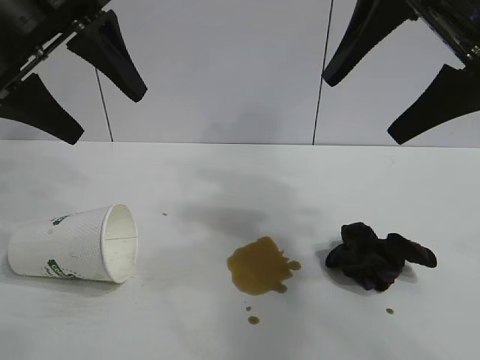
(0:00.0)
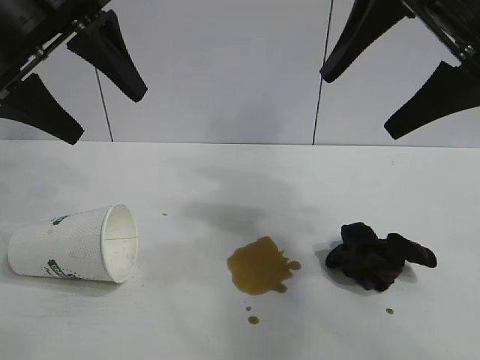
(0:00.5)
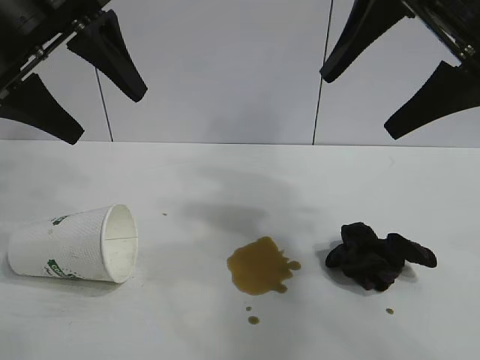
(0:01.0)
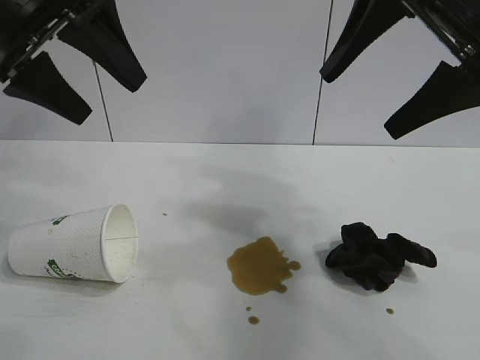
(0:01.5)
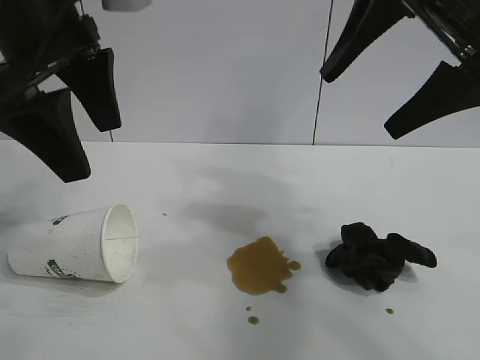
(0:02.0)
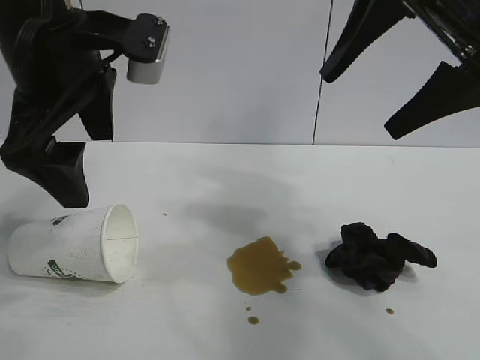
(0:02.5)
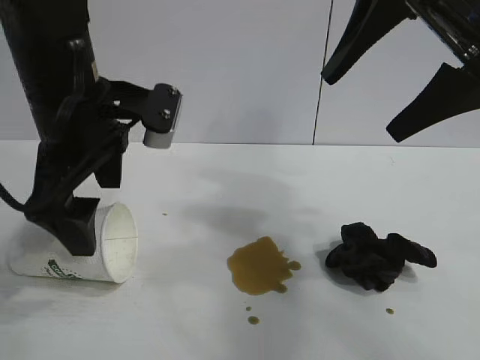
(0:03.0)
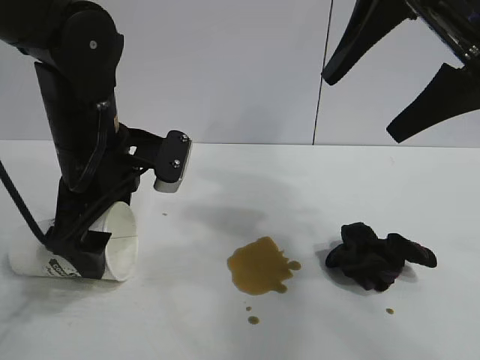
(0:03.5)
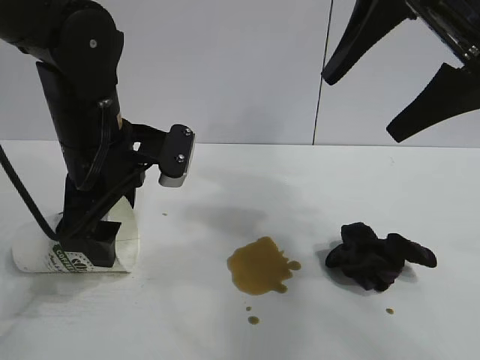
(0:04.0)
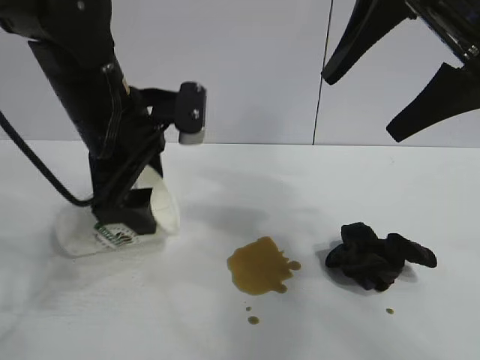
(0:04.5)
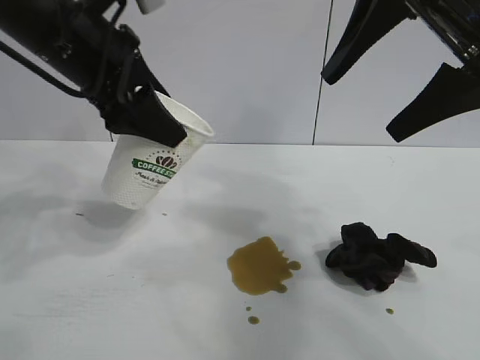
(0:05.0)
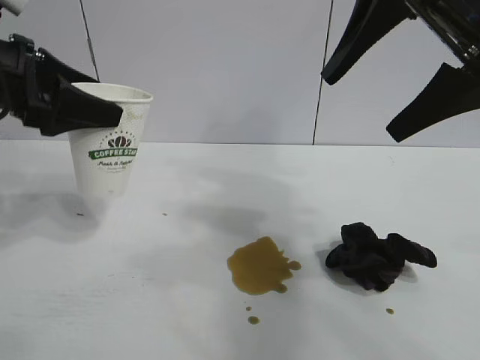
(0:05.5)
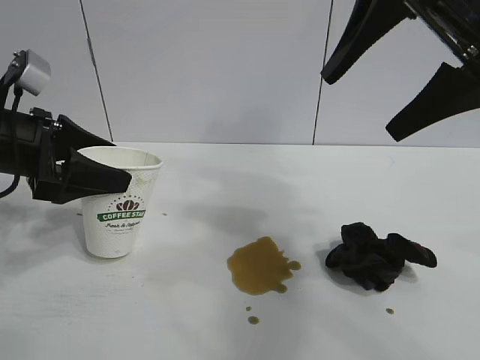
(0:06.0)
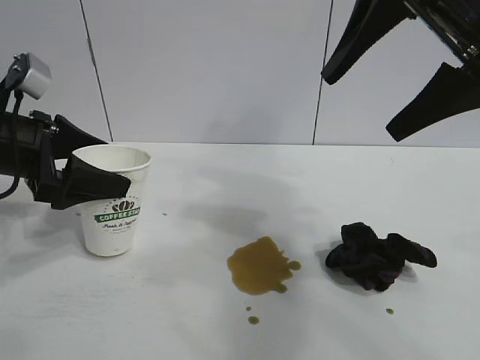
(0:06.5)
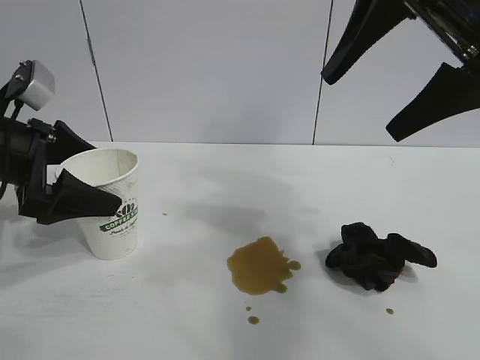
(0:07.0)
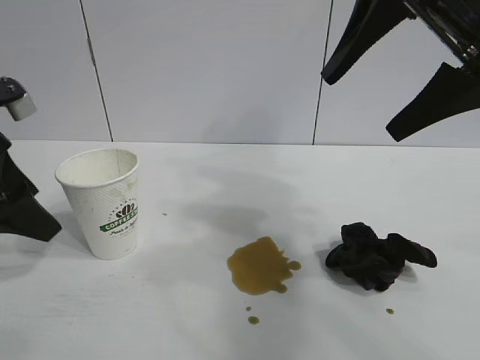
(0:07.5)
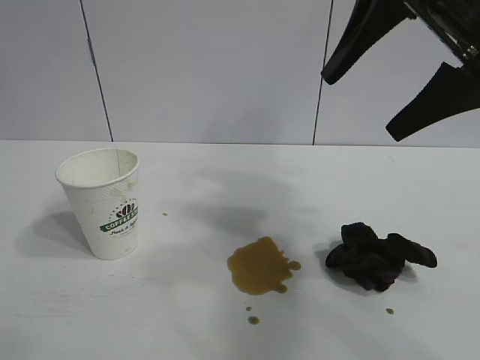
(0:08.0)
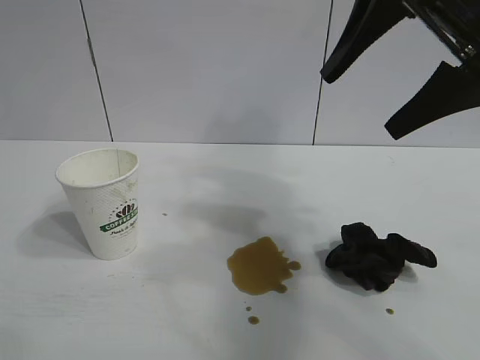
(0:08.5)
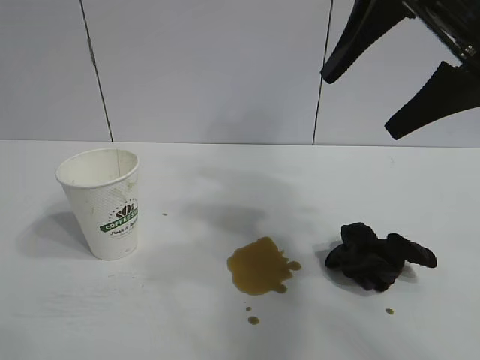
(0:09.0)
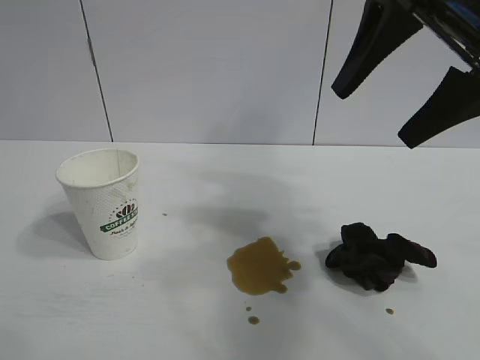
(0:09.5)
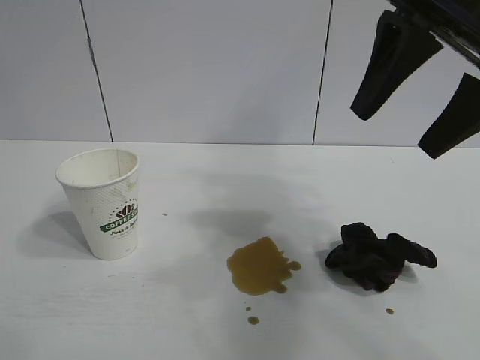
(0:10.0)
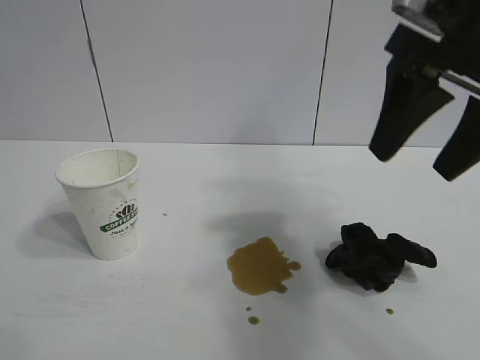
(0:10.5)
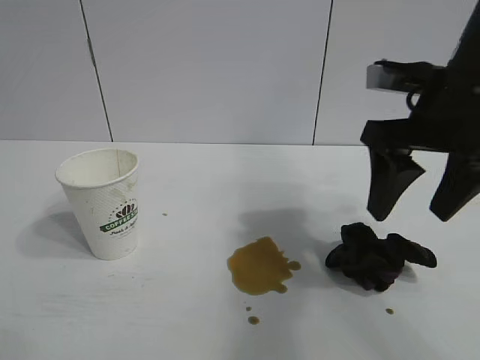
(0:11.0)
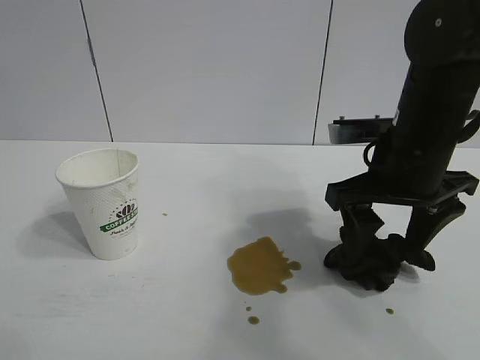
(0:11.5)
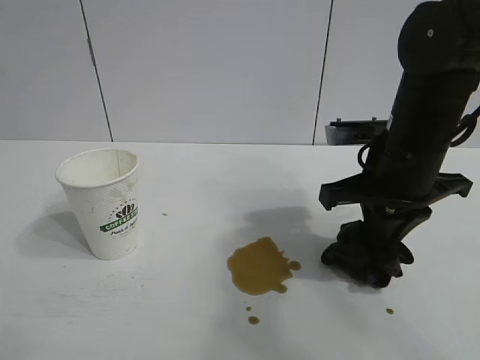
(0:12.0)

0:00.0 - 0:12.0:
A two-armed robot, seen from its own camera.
Task of the whole recording: the left gripper pick up the fallen cup and place it upright, the right gripper grasp the black rag and wipe the stain on the table, the right gripper put the black rag back in its original position.
Step, 0:01.5 - 0:04.0: Grasp the paper cup with left gripper.
Step, 0:04.5 - 0:06.5: Stand the paper cup upright with left gripper.
Step, 0:07.0 - 0:11.5: Grasp the rag with right gripper.

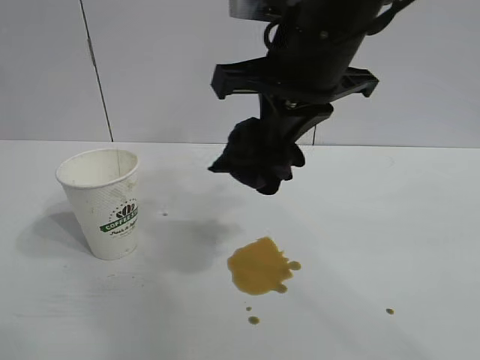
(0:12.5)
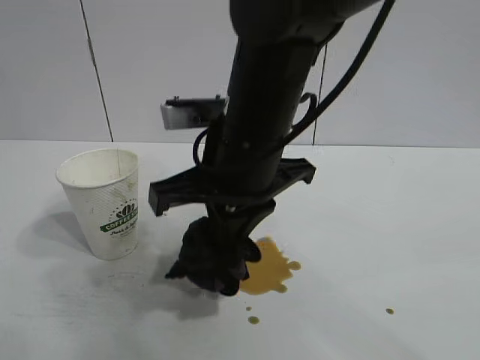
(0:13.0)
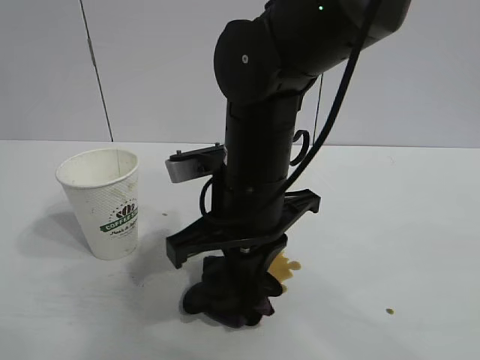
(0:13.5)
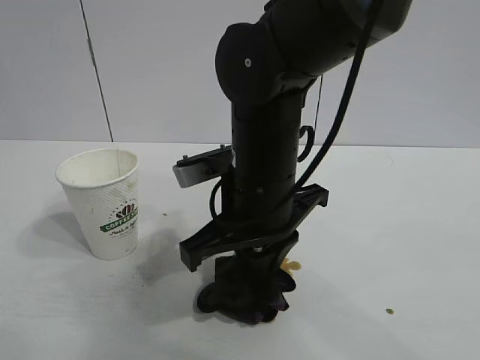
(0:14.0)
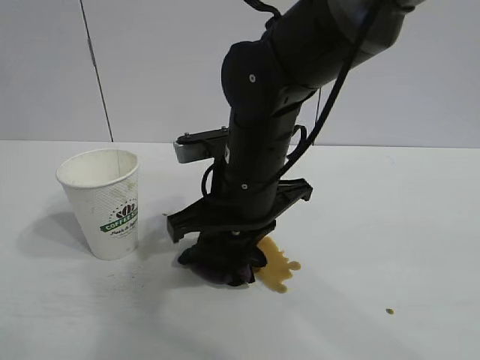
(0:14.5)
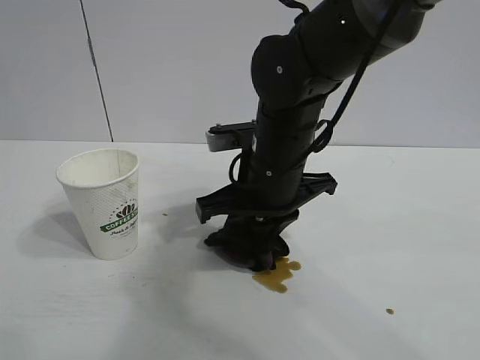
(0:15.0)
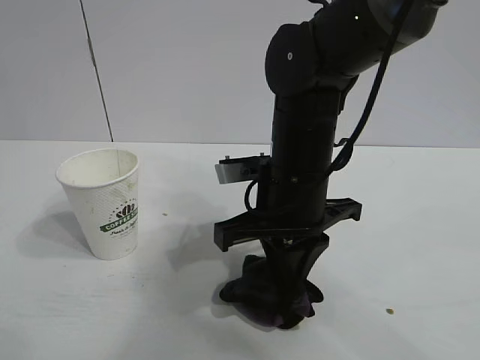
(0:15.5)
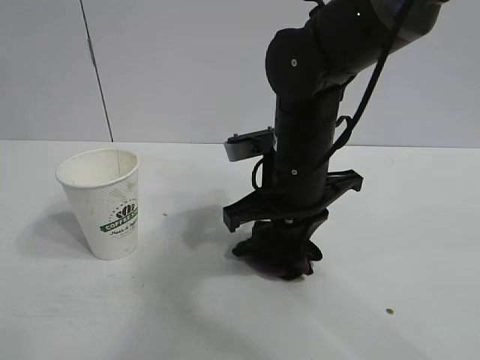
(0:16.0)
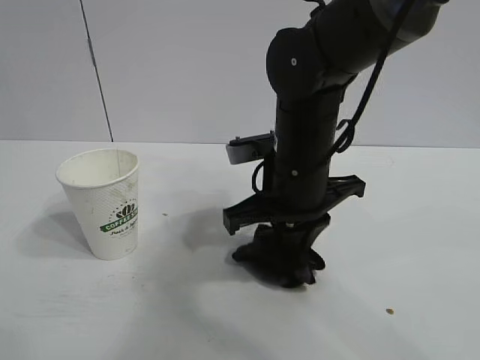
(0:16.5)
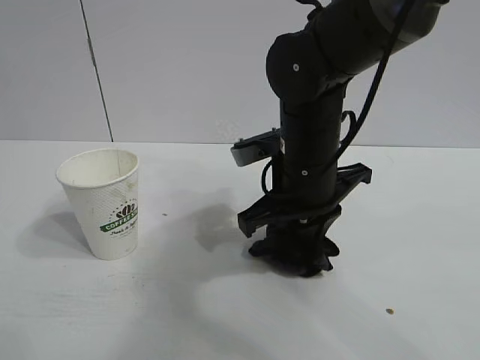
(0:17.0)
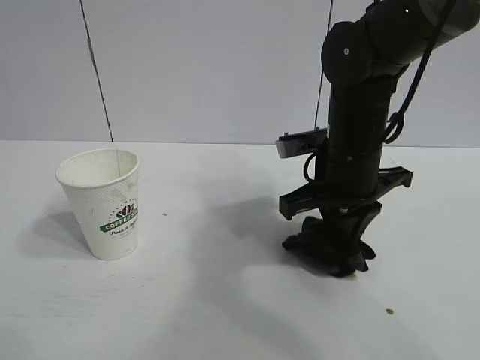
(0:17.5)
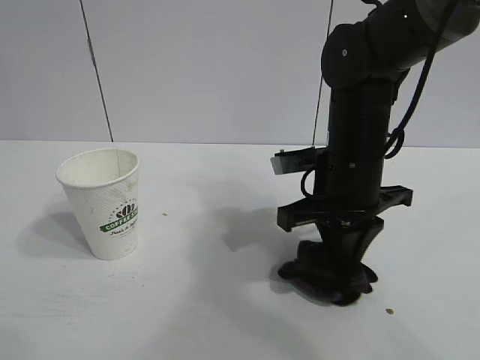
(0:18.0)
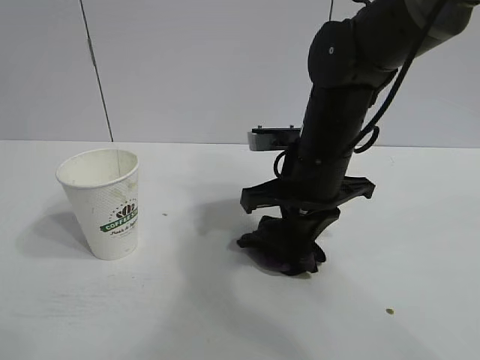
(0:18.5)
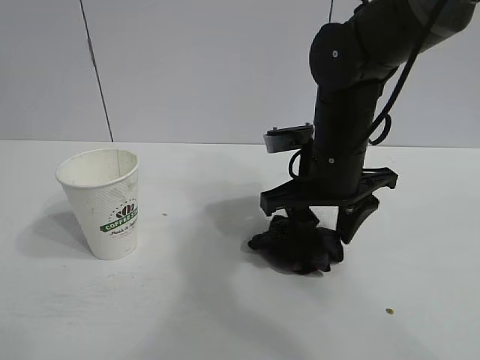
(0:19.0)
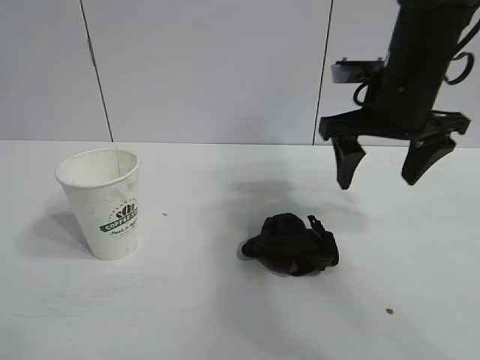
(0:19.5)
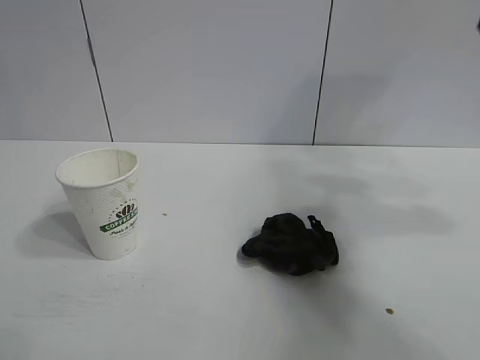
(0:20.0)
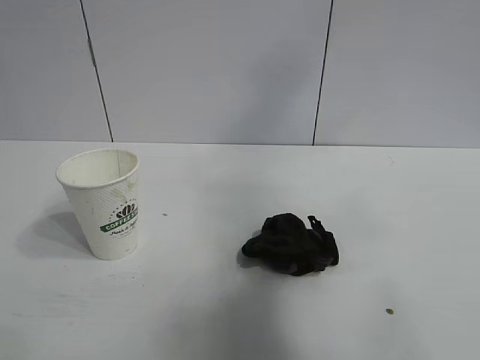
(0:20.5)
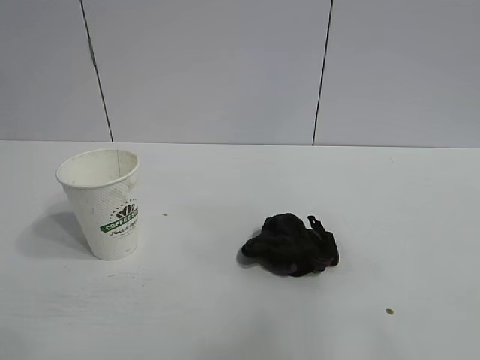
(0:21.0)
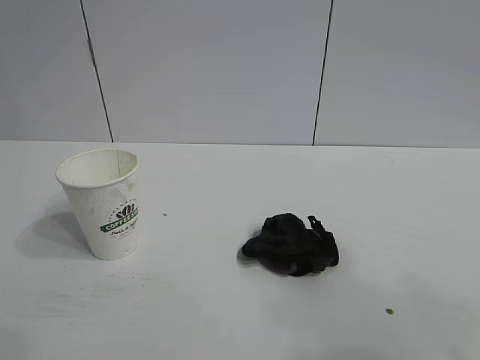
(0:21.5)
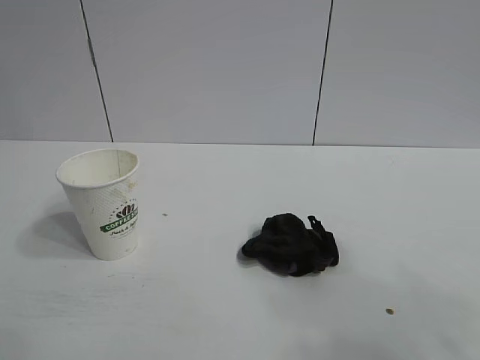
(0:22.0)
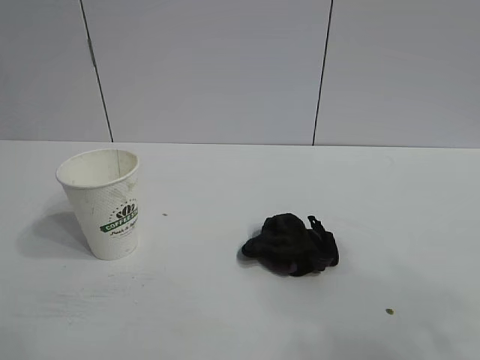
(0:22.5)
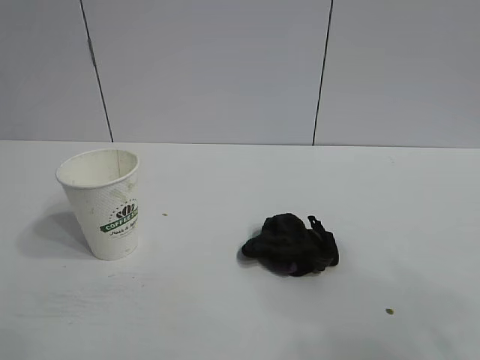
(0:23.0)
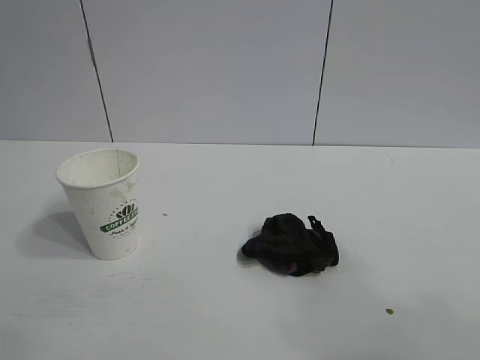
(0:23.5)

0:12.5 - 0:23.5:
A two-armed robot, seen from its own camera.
Task of the whole recording: the left gripper pick up the fallen cup and place it upright, the right gripper grasp the black rag and wipe the stain on the table, the right gripper put the black rag back in its original position.
Step, 0:12.5 - 0:18.5: Wipe the stains off the table with the rag with right gripper.
